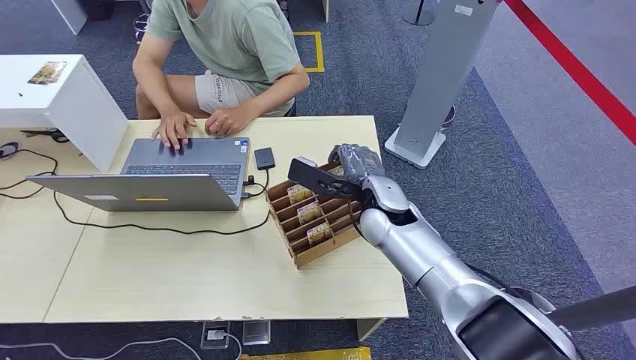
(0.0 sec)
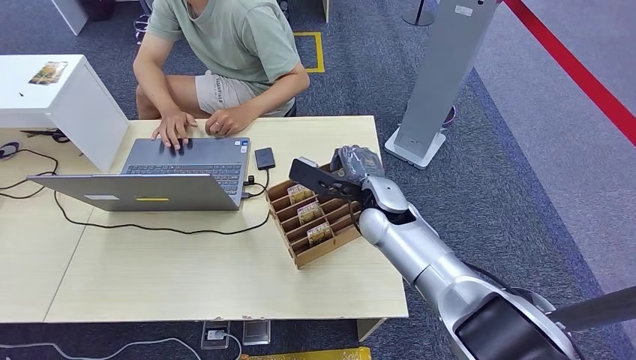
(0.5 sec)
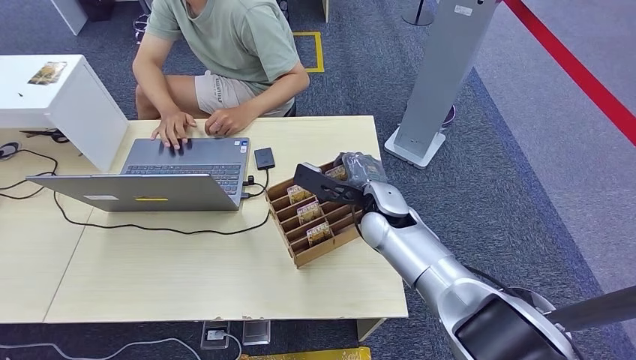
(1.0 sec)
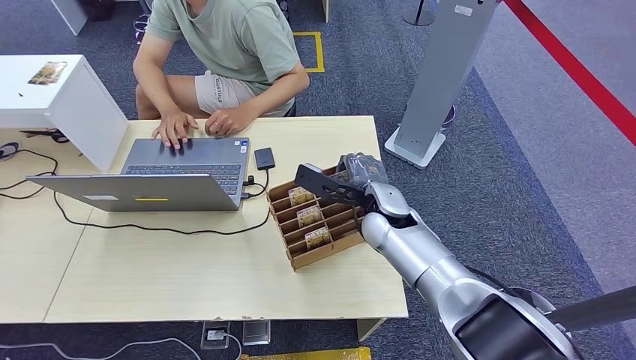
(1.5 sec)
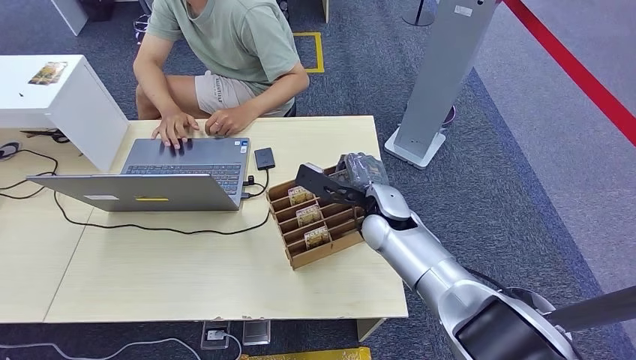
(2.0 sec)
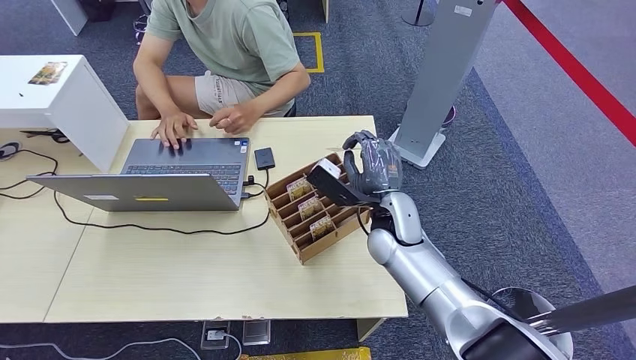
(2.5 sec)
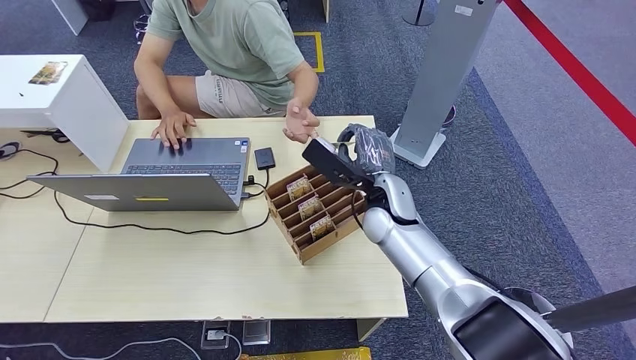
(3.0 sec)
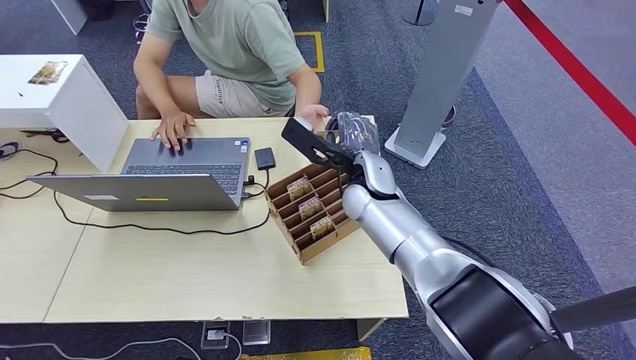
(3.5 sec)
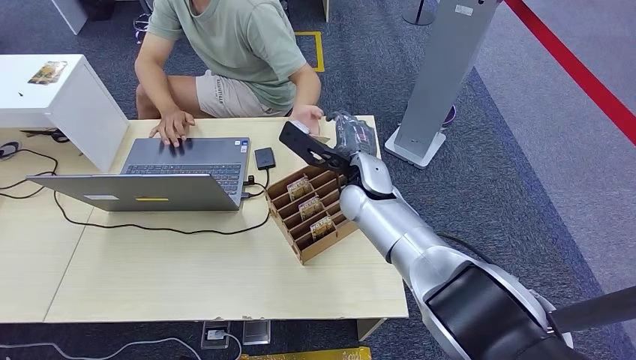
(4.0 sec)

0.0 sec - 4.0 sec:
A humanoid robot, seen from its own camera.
Step, 0.0 sec - 2.0 sec: Pick up the key card from the card box.
Step, 3.5 sec - 4.0 sec: Hand the key card to the target.
2.0 sec - 4.0 sec: The right hand travels upward by some 5 cm.
